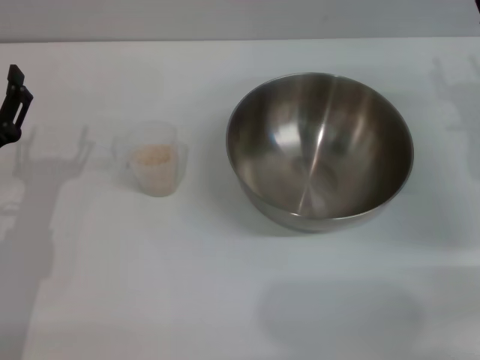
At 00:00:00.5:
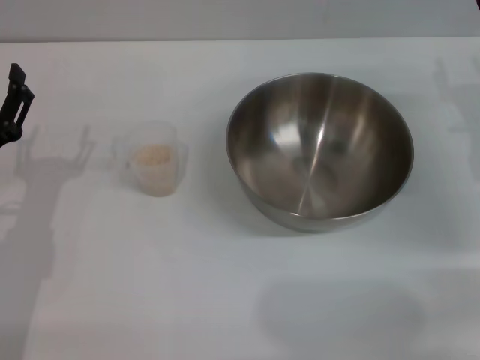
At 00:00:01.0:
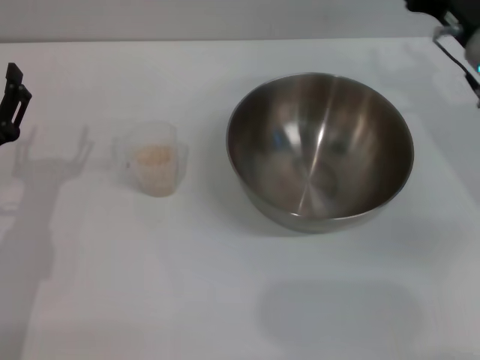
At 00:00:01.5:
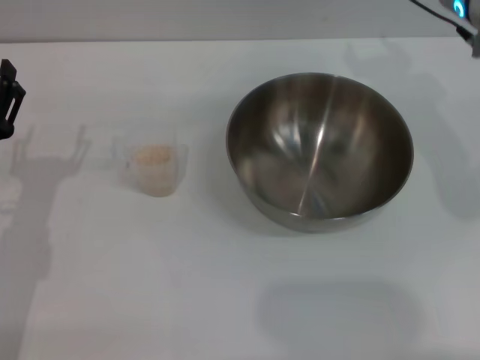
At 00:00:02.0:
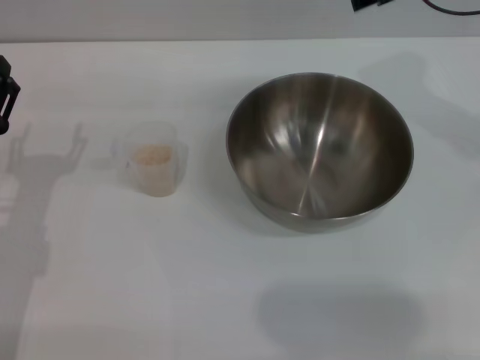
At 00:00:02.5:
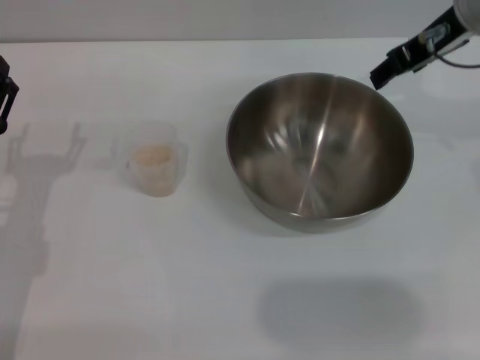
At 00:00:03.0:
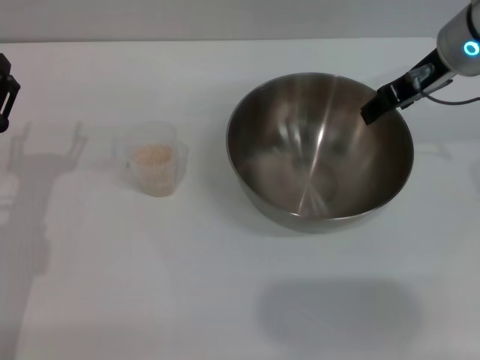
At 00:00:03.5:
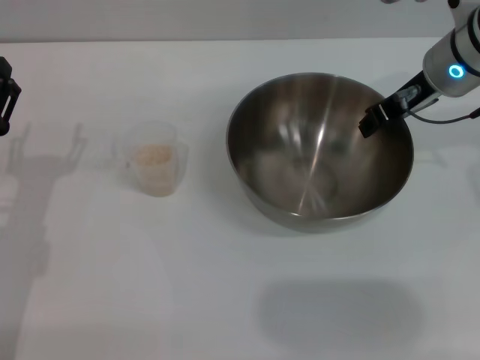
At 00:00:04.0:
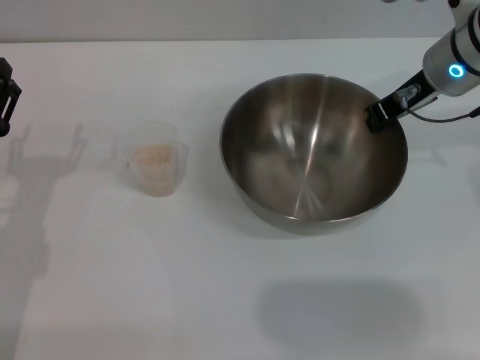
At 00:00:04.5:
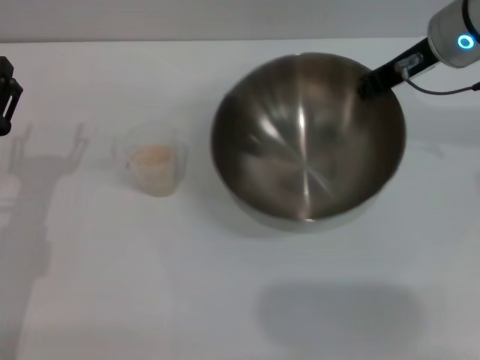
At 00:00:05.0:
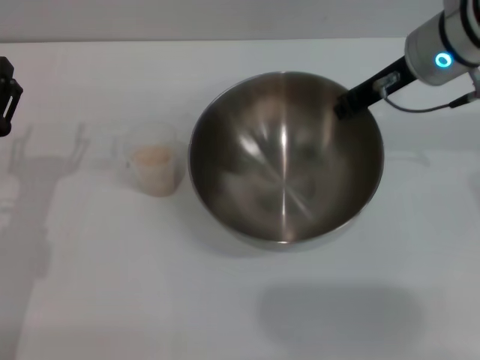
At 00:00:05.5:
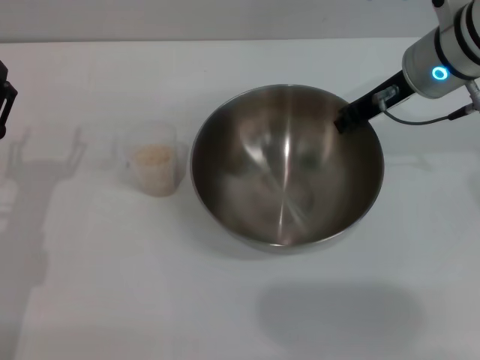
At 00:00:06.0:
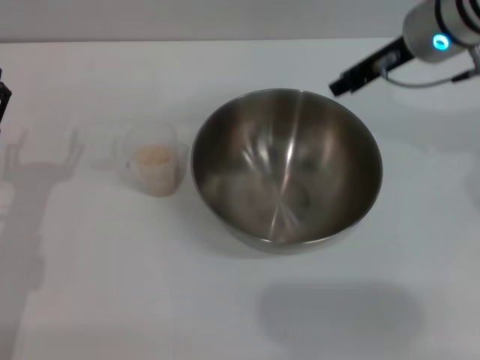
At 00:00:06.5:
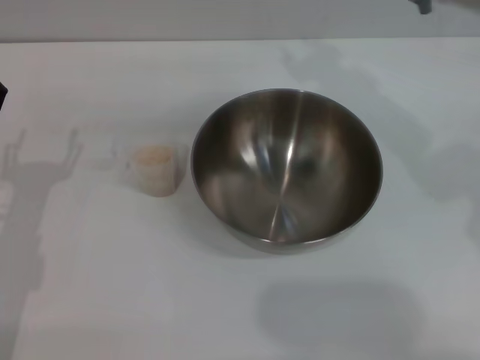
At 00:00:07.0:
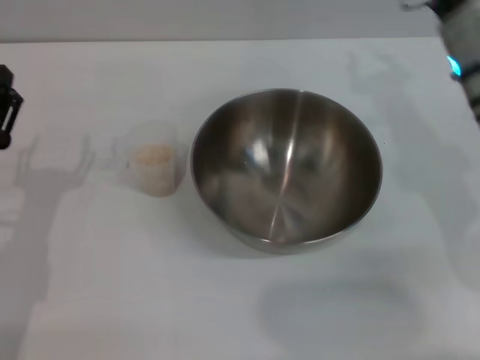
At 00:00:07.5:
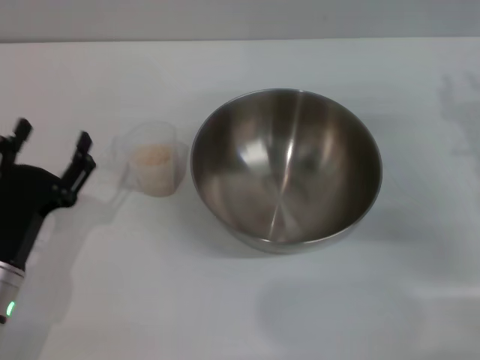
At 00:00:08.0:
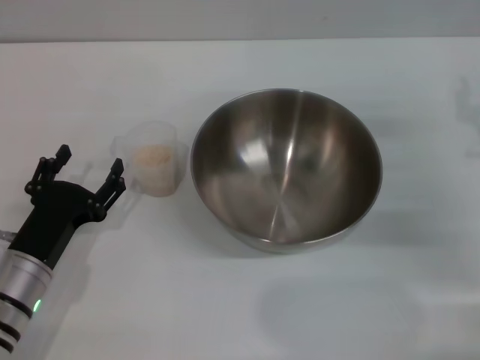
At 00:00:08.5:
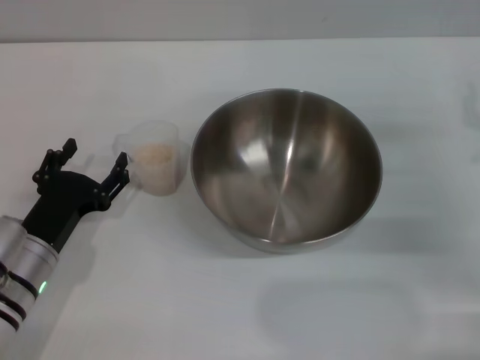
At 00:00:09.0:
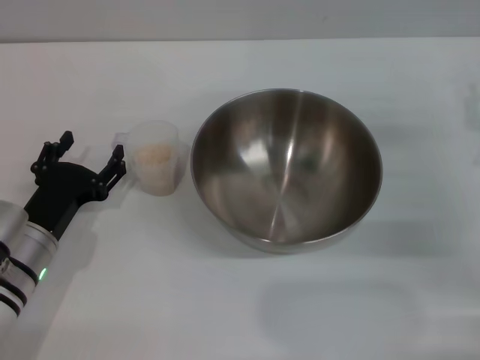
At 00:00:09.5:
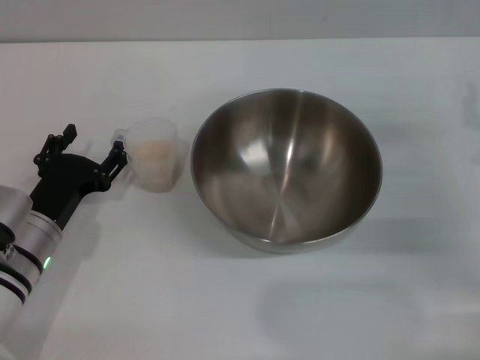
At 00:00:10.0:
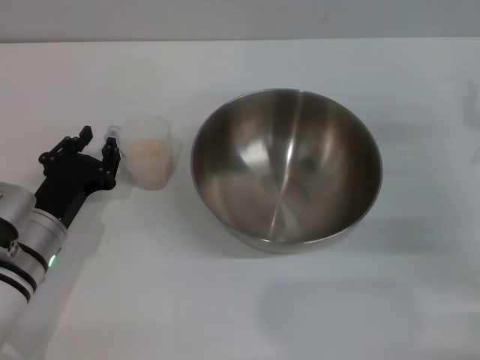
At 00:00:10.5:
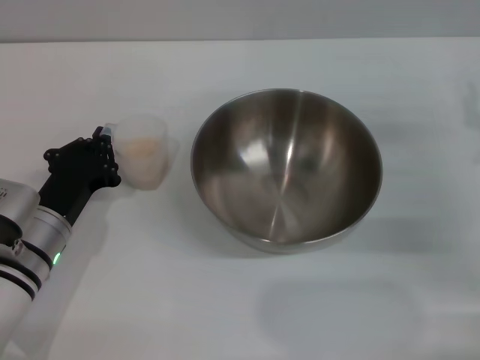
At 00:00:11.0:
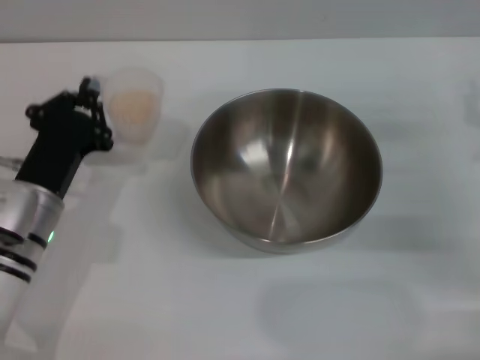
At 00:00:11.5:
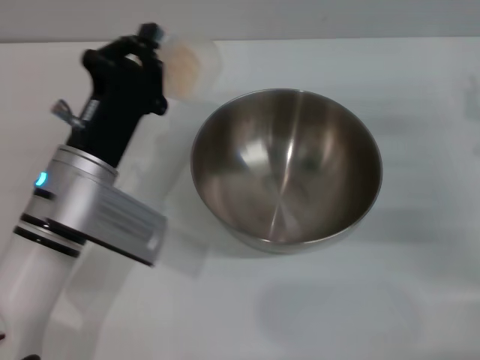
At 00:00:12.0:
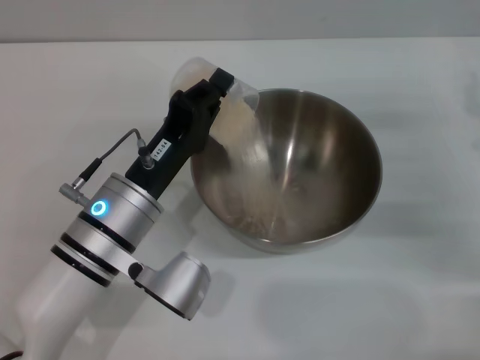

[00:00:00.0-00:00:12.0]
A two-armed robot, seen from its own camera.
Task of the whole recording: Place the bowl in the middle of the table with one hand and pour the rice from the grain cup into it with the other hand.
Step, 00:00:00.0 to 00:00:04.5: Pick up the bowl with the right gripper.
Step, 00:00:05.0 to 00:00:06.0: Place the bowl in the center of view with the right gripper.
Step, 00:00:06.5 to 00:00:11.0: Pick up the cup with rice in it with the left gripper.
00:00:00.0 to 00:00:02.0: The right gripper moves upward and to the left, about 20 cm.
00:00:02.0 to 00:00:04.0: The right gripper heads downward, covering roughly 10 cm, and closes.
00:00:04.0 to 00:00:06.0: The right gripper opens its fingers.
00:00:06.0 to 00:00:08.0: The right gripper moves to the right, downward and backward, approximately 20 cm, while the left gripper ends up roughly 5 cm from where it was.
00:00:08.0 to 00:00:10.0: The left gripper closes its fingers.
00:00:10.0 to 00:00:12.0: The left gripper travels to the right and upward by about 10 cm, and closes.

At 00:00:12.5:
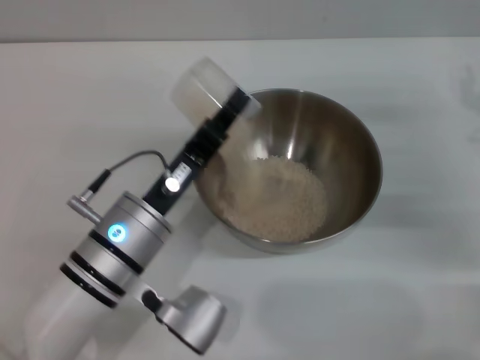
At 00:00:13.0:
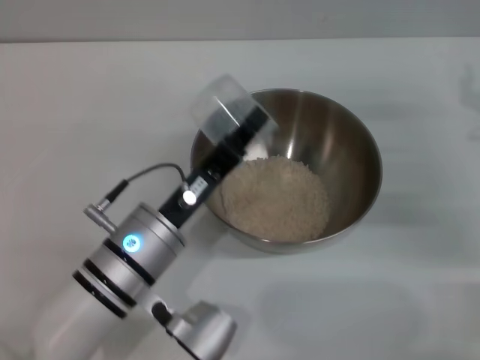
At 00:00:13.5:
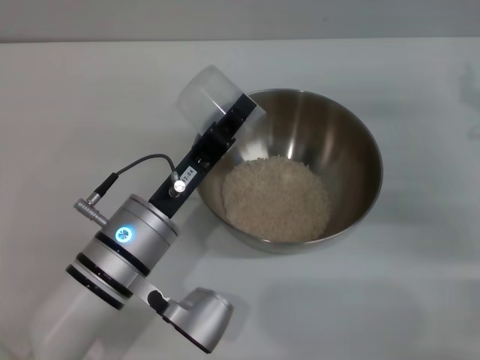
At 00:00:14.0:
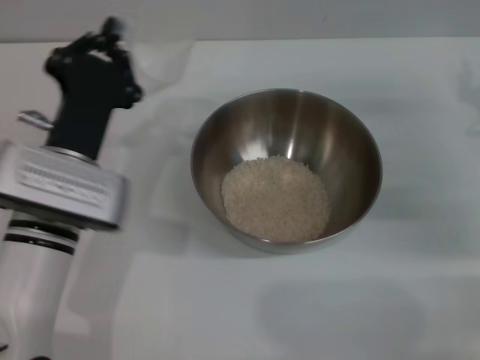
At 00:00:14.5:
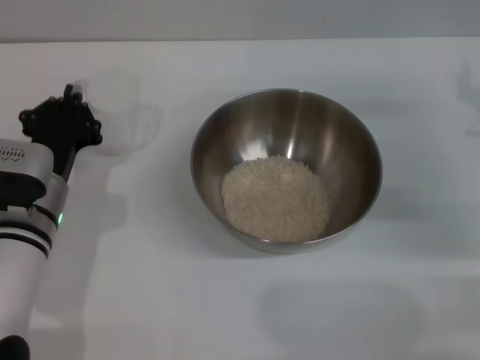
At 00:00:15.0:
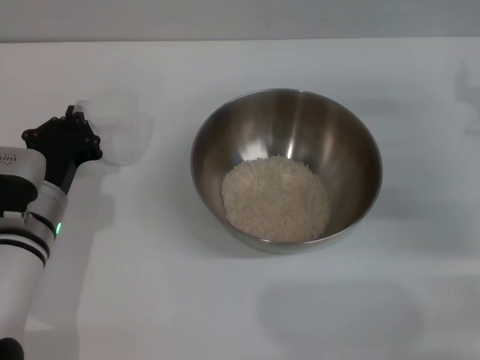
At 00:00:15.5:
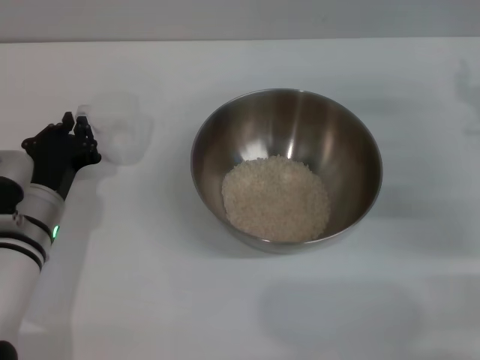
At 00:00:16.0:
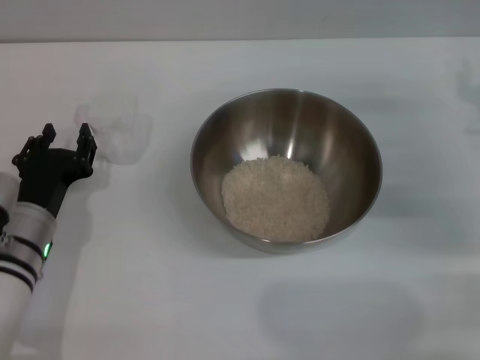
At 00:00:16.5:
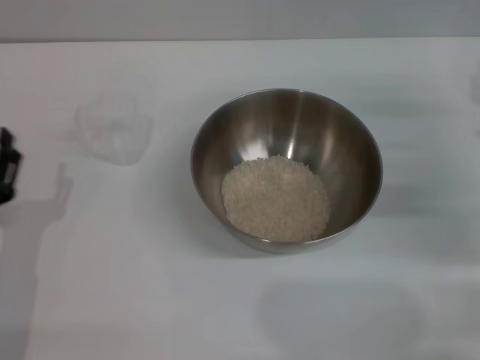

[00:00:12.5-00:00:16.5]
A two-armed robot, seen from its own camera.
Task of the whole recording: Place the bowl in the middle of the table with one hand and pour the rice from the grain cup into it with the other hand.
Step, 00:00:14.0 to 00:00:16.0: Place the cup on the table with the left gripper.
00:00:12.5 to 00:00:14.5: The left gripper moves to the left, some 10 cm.
00:00:14.5 to 00:00:16.5: The left gripper travels backward and to the left by roughly 10 cm, and opens up.
